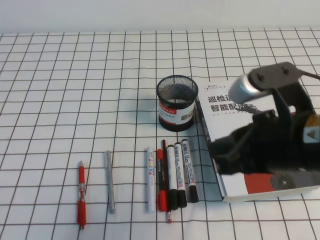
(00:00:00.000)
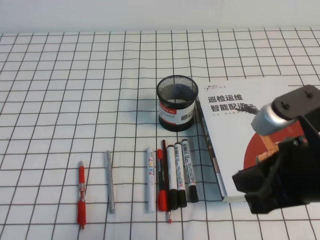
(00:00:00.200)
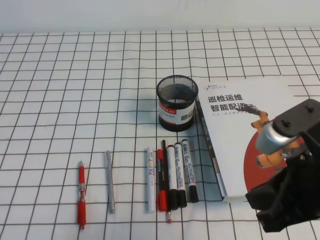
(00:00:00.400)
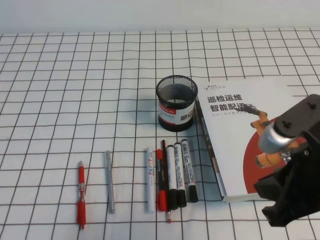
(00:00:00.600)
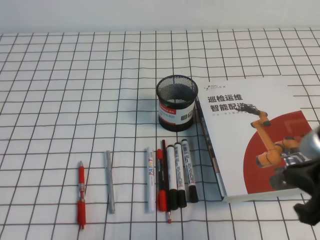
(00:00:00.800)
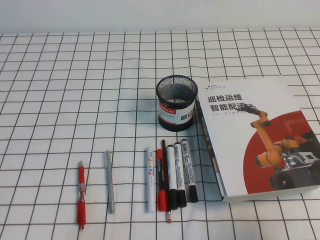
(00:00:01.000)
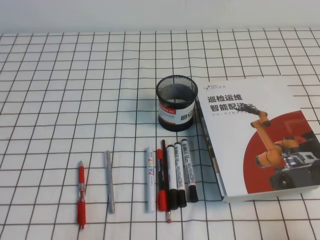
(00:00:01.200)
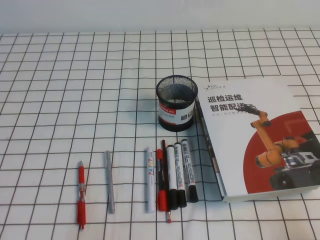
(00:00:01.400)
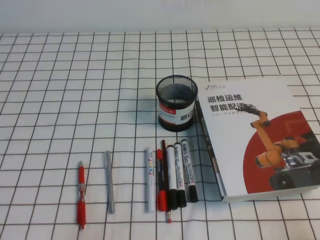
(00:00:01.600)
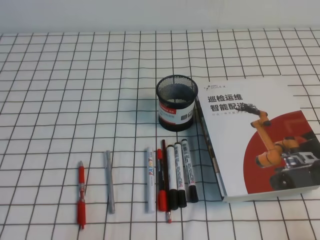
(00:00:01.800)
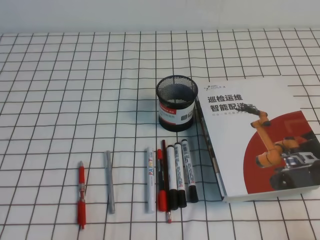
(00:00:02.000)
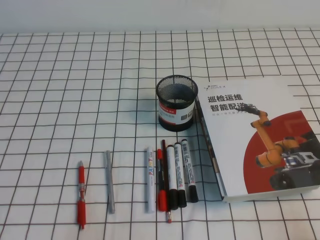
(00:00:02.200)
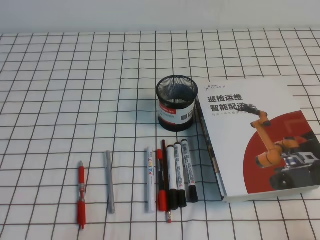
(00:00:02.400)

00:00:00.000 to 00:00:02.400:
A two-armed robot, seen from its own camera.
Step, 00:00:00.000 to 00:00:02.400: Pick up the pen from the pen holder.
00:00:00.000 to 00:00:01.200: The right gripper travels to the right, backward and downward by about 20 cm.
